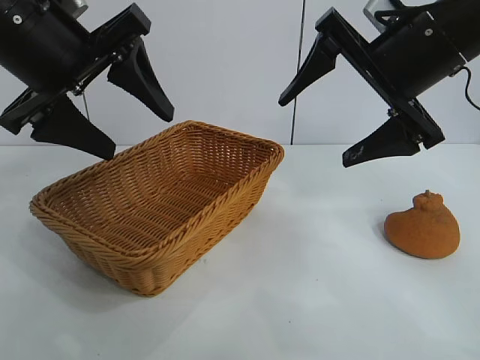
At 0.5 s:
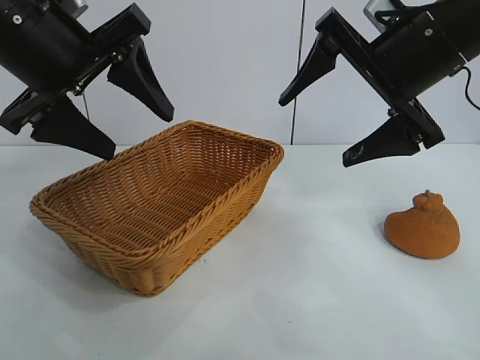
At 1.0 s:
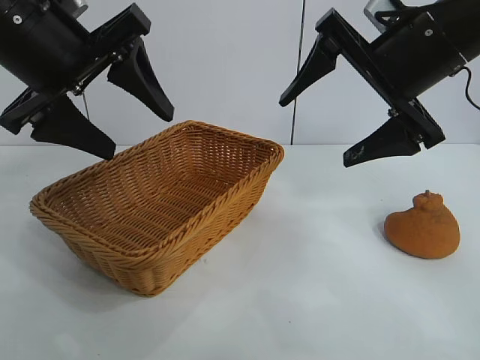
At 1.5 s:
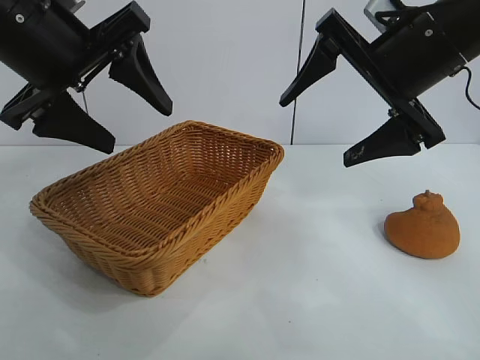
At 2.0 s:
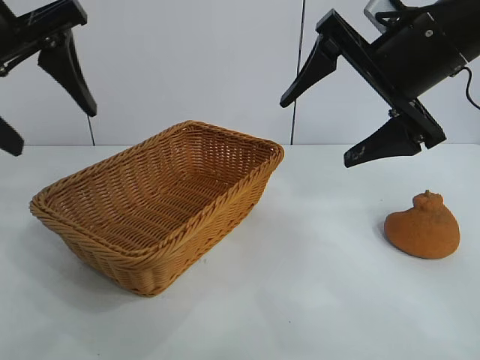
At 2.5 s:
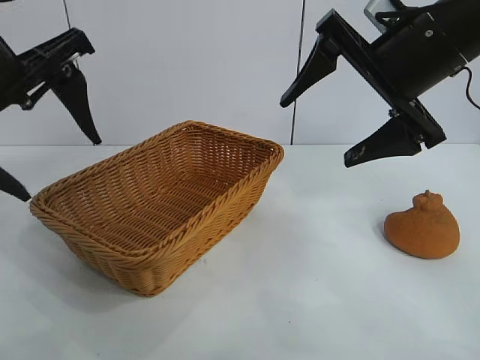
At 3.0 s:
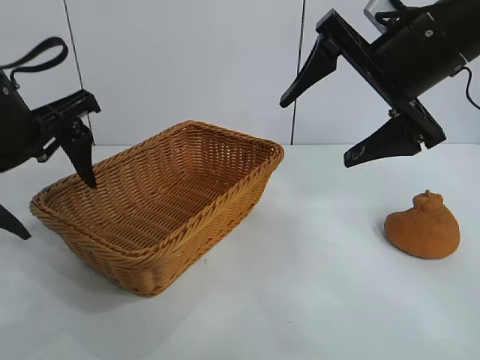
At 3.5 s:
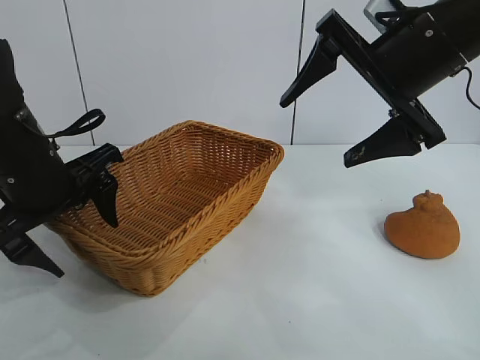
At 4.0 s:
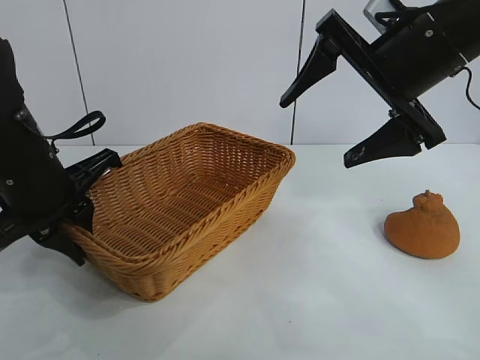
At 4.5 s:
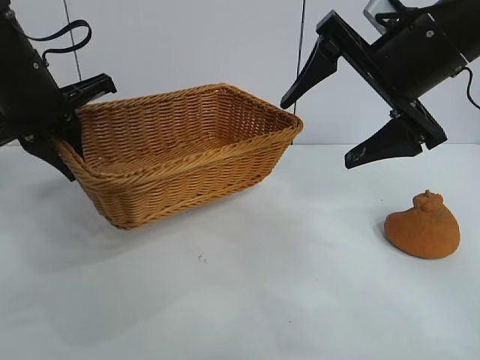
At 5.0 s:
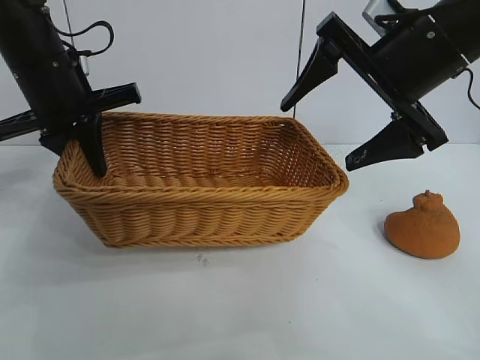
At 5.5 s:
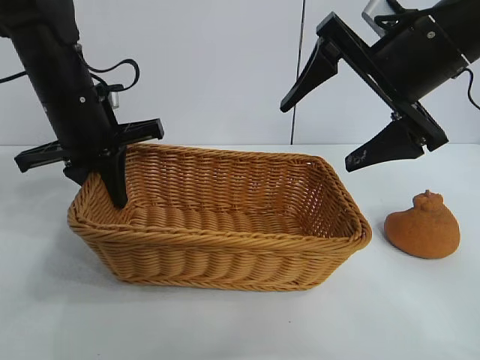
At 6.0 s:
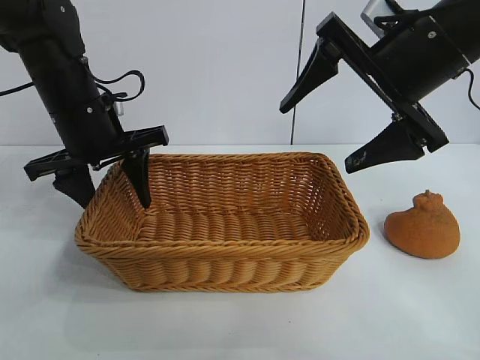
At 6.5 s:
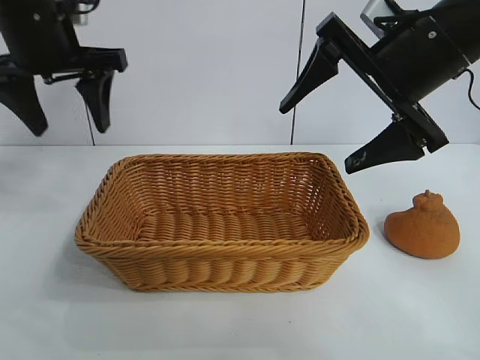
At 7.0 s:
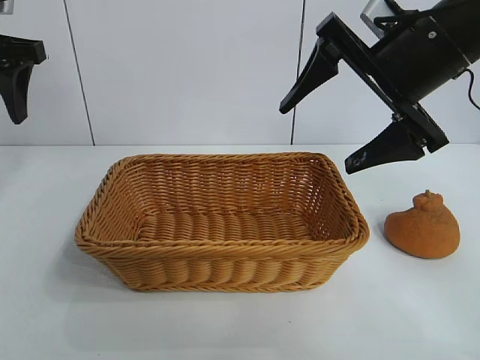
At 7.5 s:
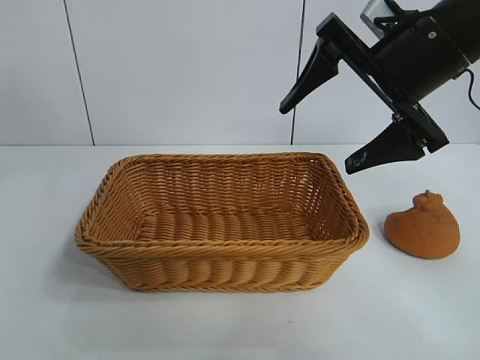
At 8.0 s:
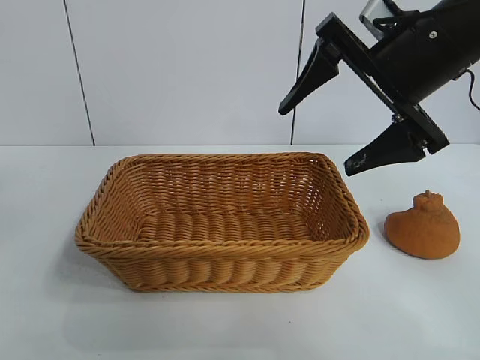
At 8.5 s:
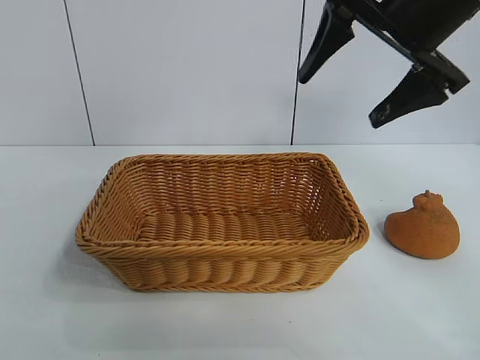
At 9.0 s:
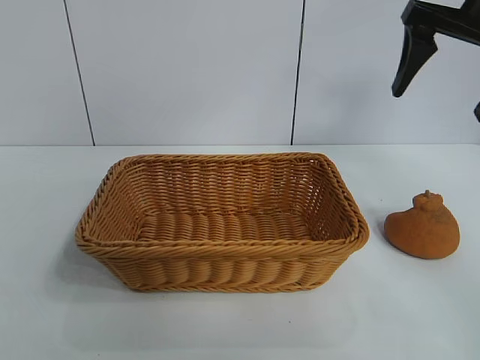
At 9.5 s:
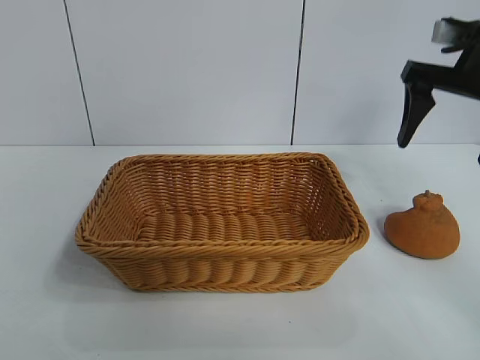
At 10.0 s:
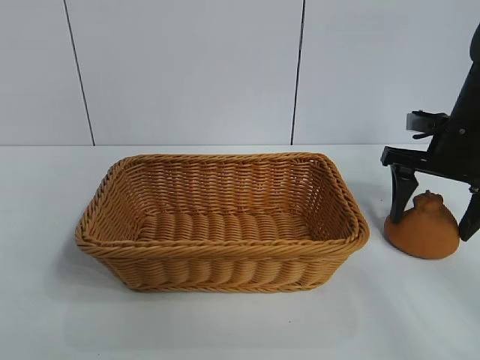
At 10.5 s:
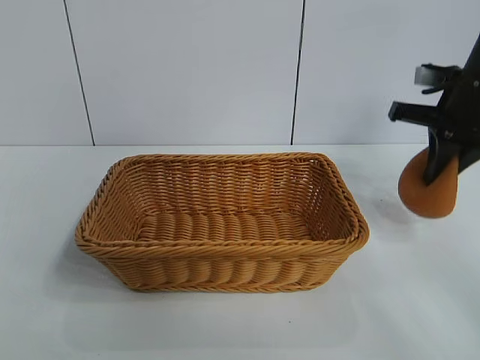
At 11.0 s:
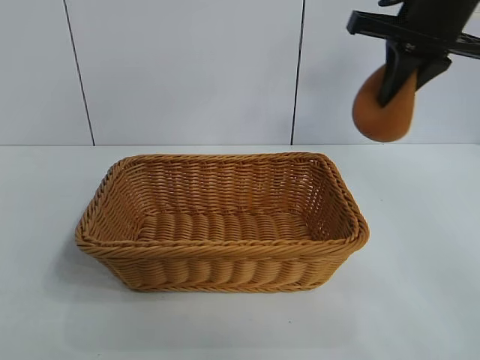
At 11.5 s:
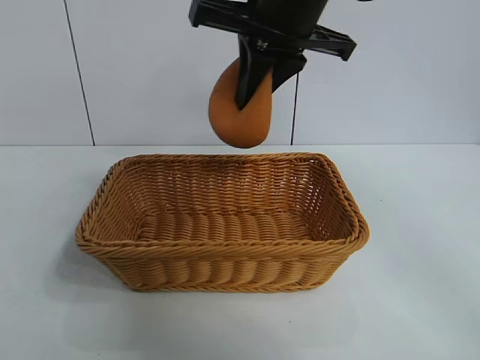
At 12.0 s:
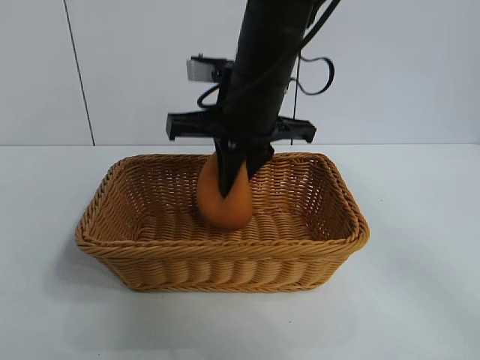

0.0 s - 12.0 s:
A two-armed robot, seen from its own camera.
Task of the whole recording: pick up the orange and put it into the basket.
Step, 1.0 s - 4.0 s: Grasp the basket with left gripper.
Step, 4.5 s - 5.5 s: Place the basket in the center of view with left gripper.
Step, 6.5 s - 10.0 s: Grasp the orange with right gripper.
